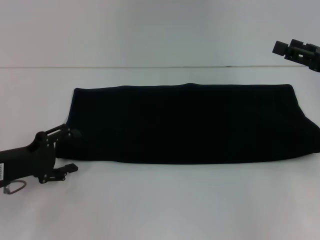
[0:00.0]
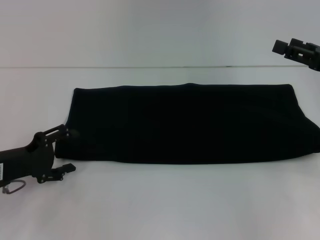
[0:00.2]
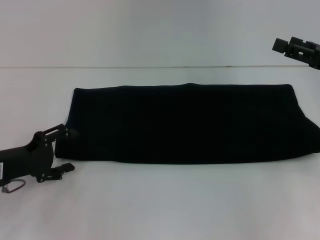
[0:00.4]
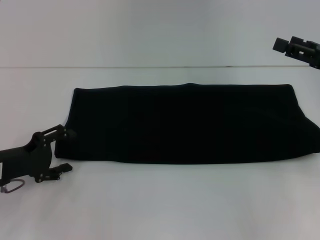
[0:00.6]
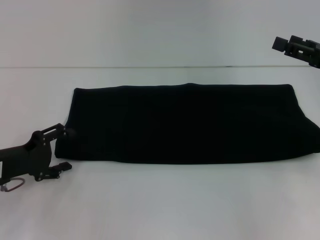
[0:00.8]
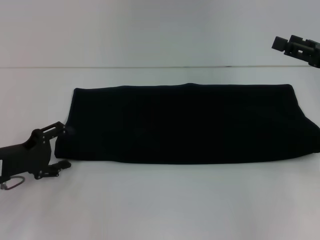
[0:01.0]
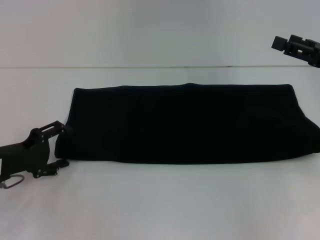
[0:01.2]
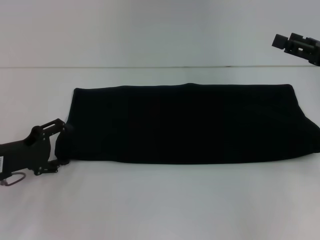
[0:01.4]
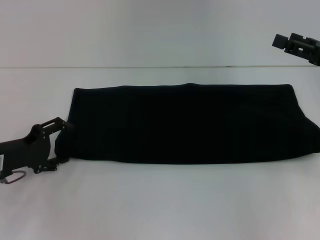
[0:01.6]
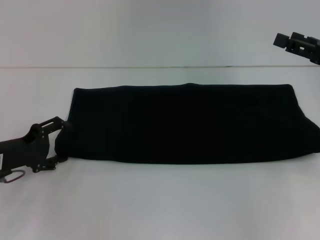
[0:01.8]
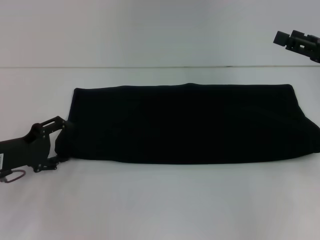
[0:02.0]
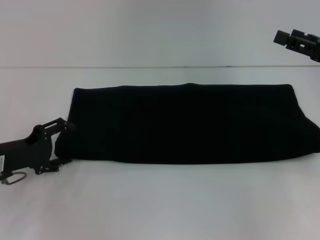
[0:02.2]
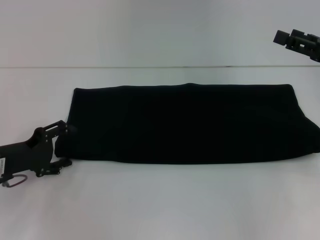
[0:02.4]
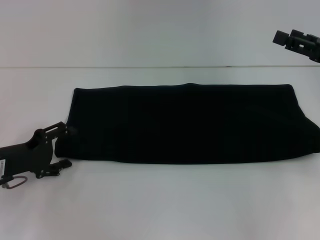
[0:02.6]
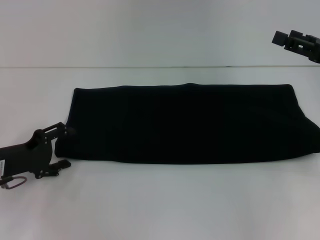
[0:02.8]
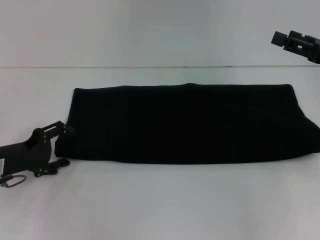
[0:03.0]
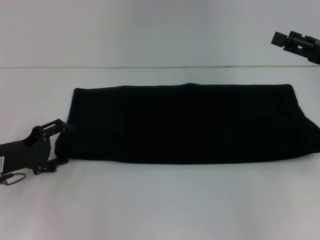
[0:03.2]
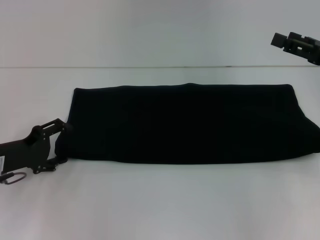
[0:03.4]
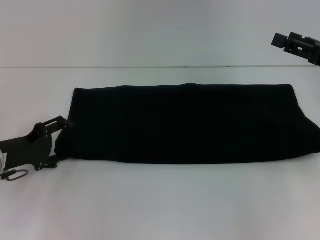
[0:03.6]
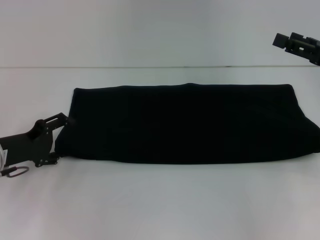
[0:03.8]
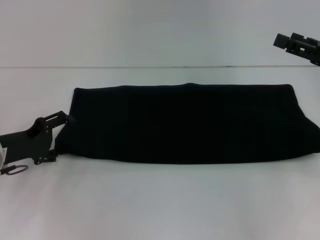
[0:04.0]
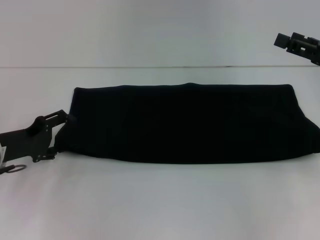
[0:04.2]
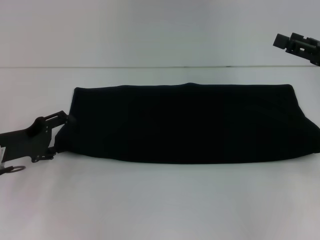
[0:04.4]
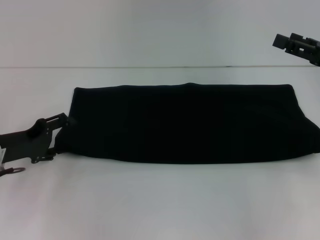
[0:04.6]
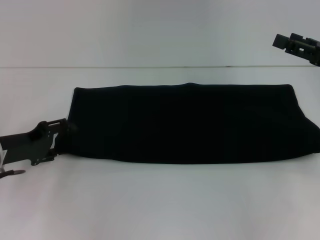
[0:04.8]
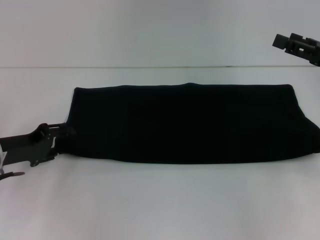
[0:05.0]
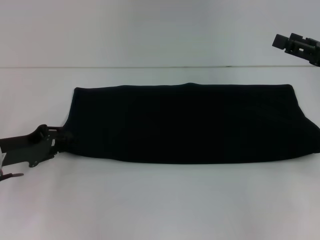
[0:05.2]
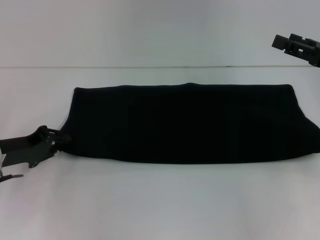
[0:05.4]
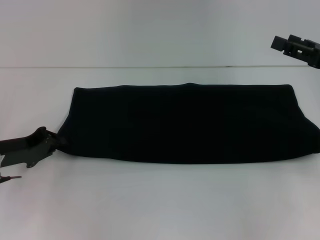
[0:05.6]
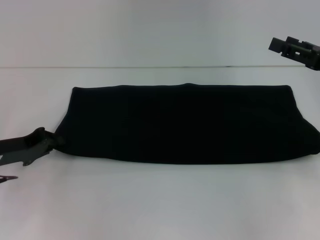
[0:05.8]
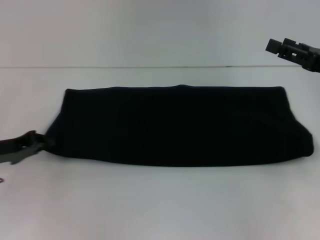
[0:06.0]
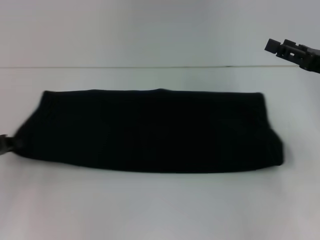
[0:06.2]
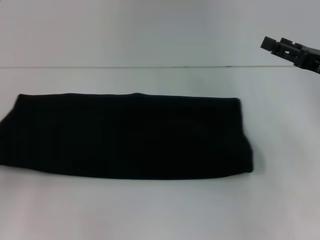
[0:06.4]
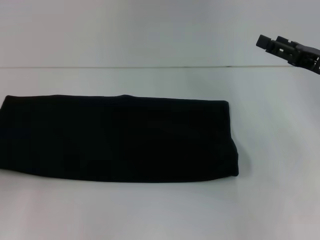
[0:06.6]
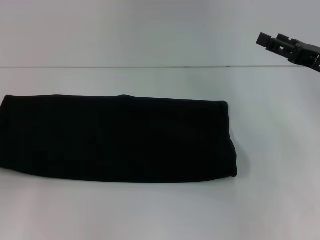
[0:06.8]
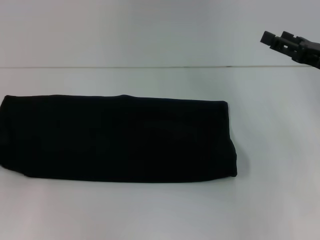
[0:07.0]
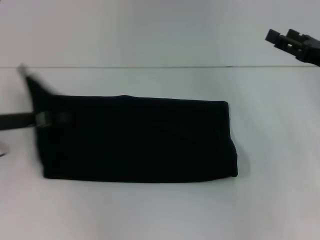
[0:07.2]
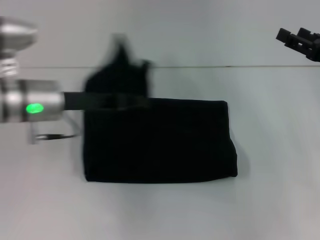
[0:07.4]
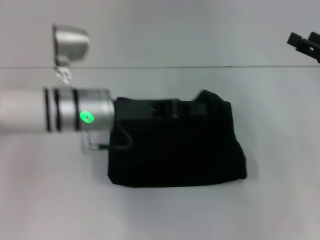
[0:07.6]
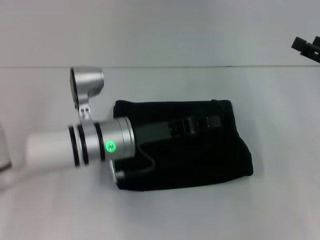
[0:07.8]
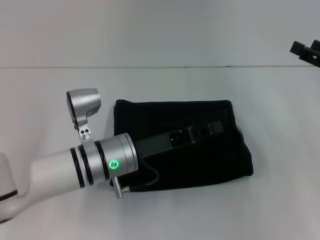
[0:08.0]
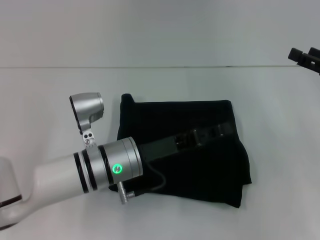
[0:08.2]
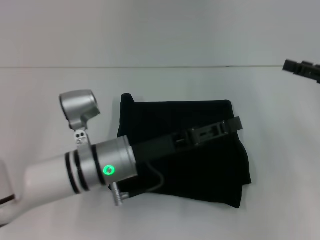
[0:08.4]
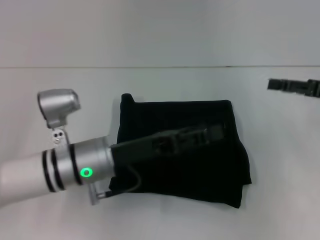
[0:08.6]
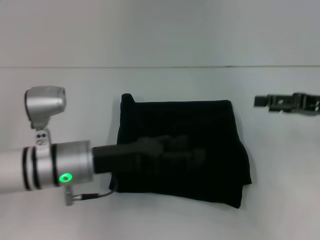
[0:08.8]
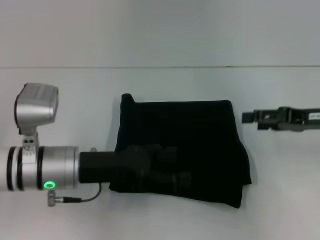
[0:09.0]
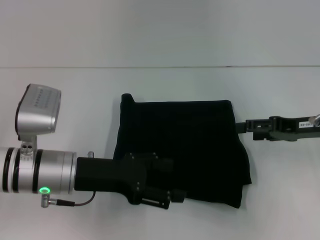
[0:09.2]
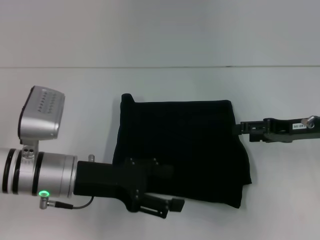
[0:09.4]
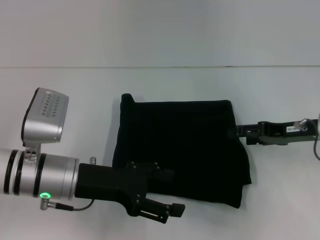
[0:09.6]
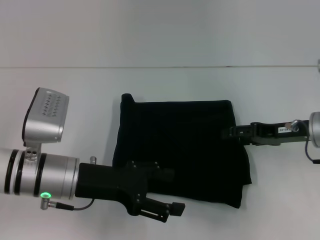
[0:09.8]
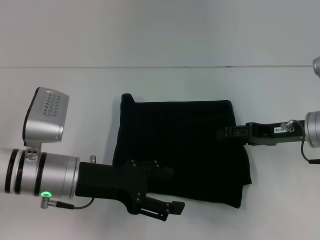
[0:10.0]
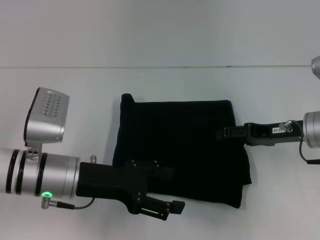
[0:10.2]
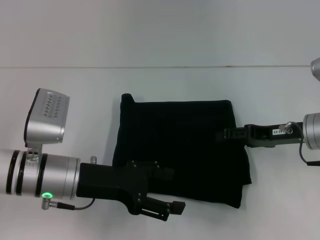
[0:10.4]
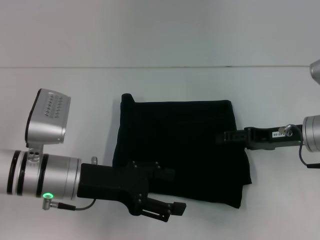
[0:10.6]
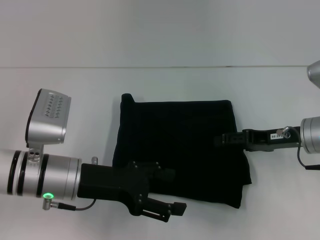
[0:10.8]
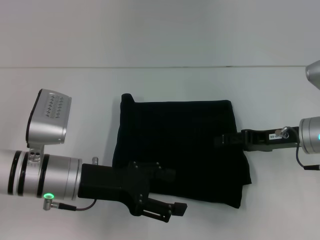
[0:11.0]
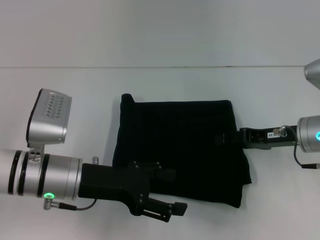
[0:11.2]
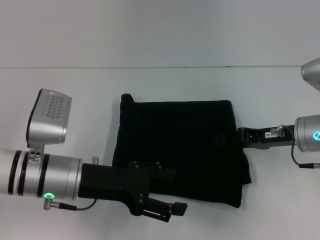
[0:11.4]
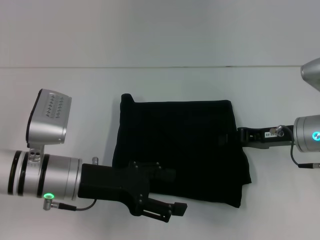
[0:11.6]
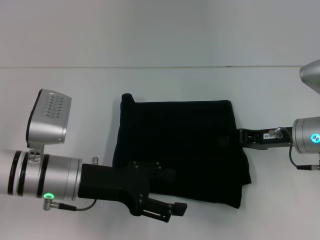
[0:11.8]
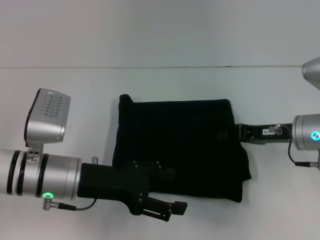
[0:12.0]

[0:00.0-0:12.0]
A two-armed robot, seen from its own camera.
Step, 0:00.0 to 0:08.4: Fold the clothes with your left hand.
0:00.0 to 0:01.6: The grippers move only a little.
0:01.6 to 0:03.0: Neither gripper changes place.
0:03.0 to 0:04.4: The grippers stay close to where they were, moving slightly.
0:04.4 to 0:06.0: The left gripper closes.
0:06.0 to 0:07.6: The left gripper goes approximately 20 cm to the right.
0:07.6 to 0:09.0: The left gripper is displaced backward by approximately 5 cm, and opens up.
0:09.0 to 0:10.4: The right gripper changes place by about 5 cm.
0:10.4 to 0:12.0: The right gripper closes up.

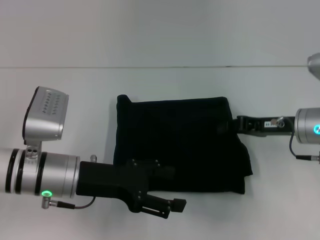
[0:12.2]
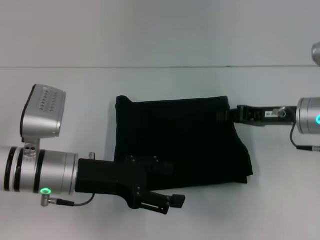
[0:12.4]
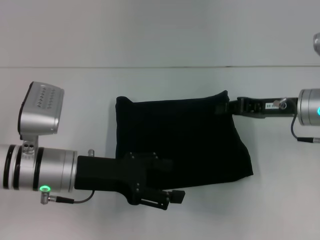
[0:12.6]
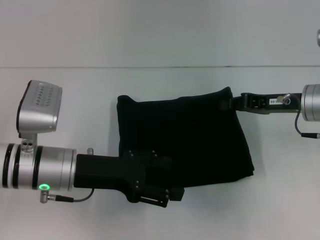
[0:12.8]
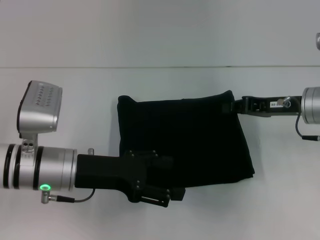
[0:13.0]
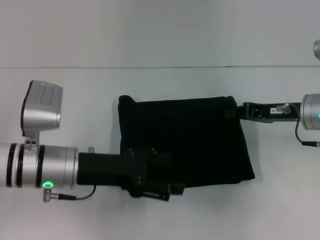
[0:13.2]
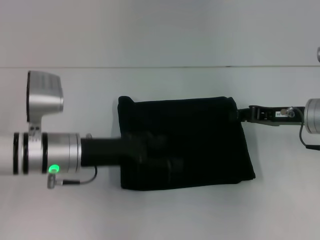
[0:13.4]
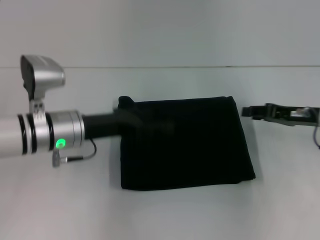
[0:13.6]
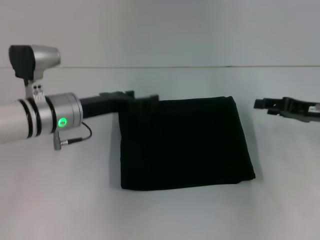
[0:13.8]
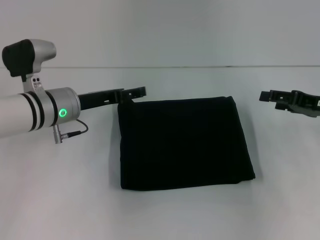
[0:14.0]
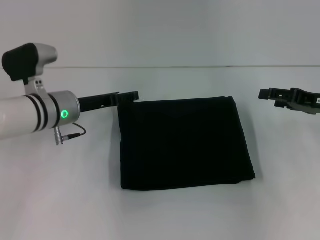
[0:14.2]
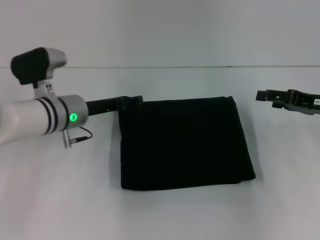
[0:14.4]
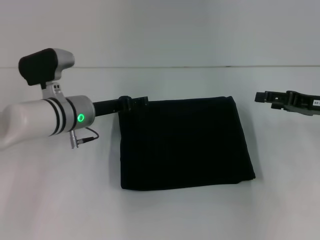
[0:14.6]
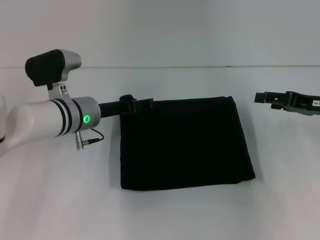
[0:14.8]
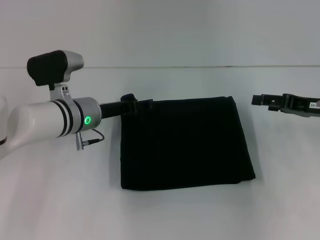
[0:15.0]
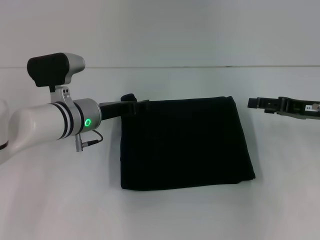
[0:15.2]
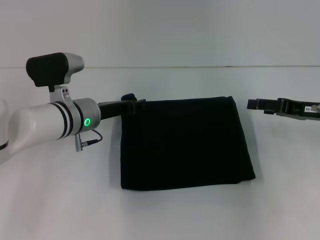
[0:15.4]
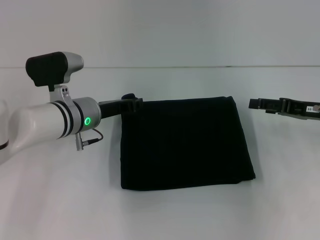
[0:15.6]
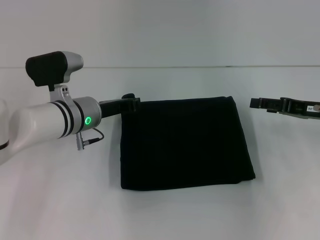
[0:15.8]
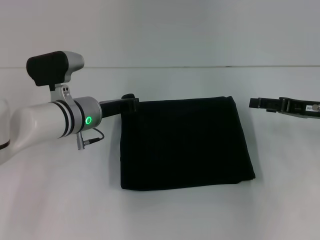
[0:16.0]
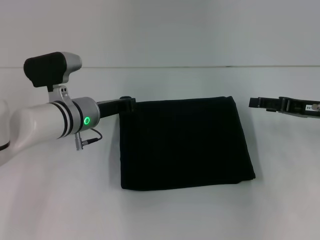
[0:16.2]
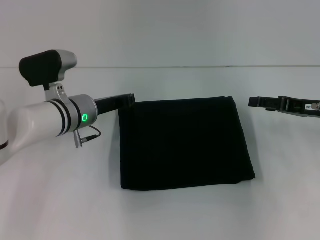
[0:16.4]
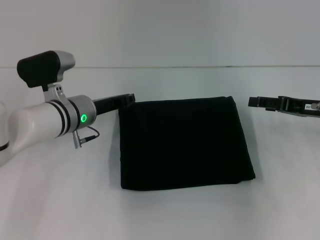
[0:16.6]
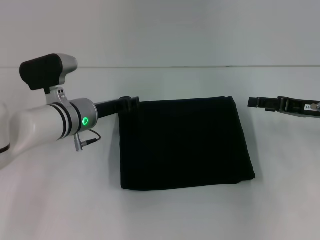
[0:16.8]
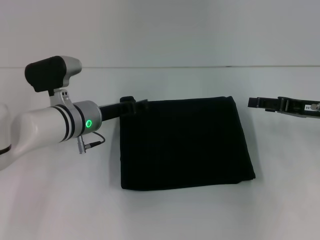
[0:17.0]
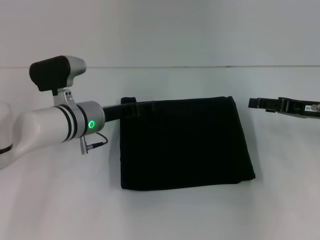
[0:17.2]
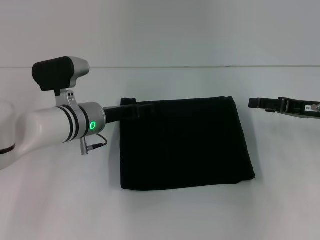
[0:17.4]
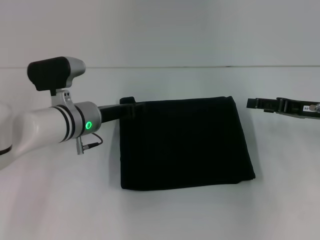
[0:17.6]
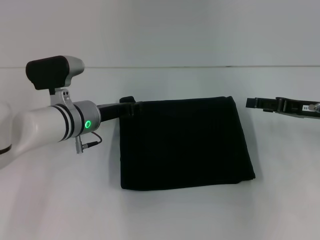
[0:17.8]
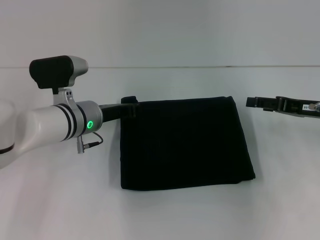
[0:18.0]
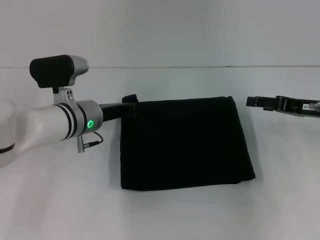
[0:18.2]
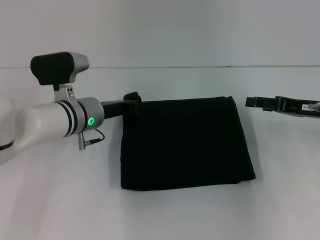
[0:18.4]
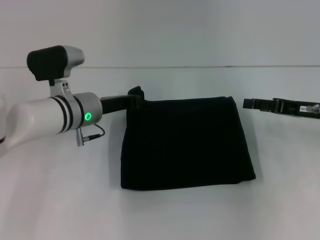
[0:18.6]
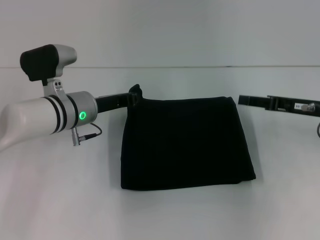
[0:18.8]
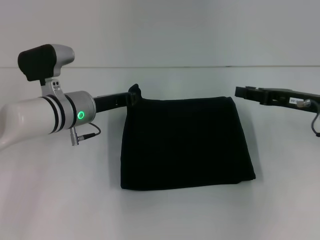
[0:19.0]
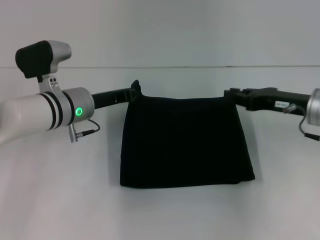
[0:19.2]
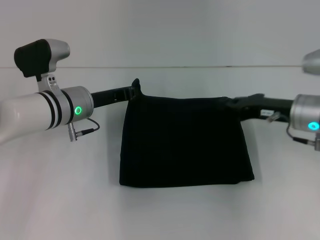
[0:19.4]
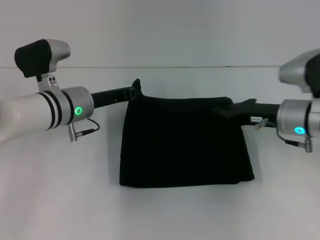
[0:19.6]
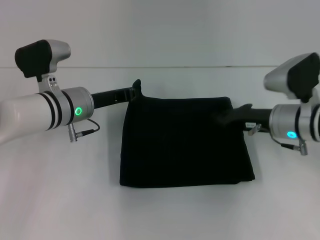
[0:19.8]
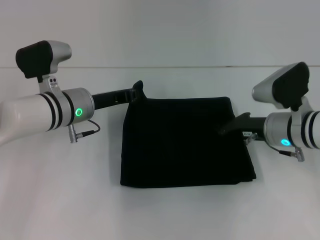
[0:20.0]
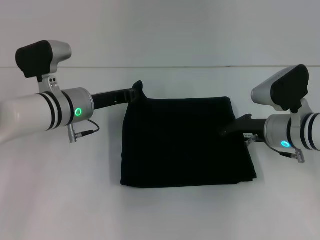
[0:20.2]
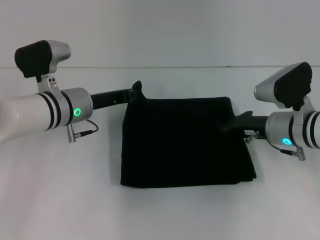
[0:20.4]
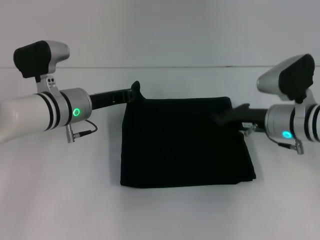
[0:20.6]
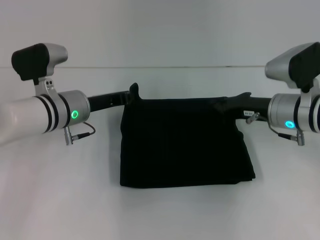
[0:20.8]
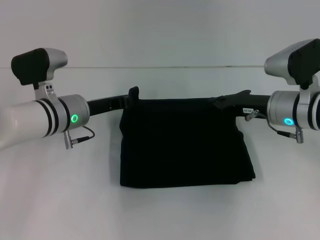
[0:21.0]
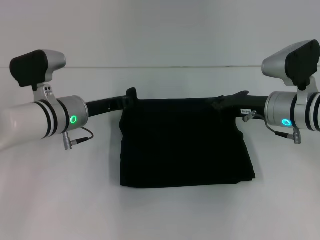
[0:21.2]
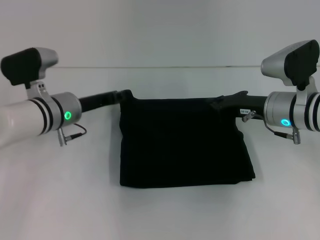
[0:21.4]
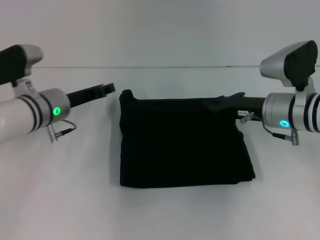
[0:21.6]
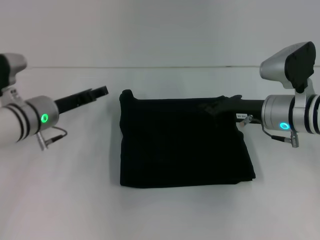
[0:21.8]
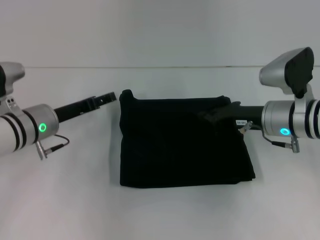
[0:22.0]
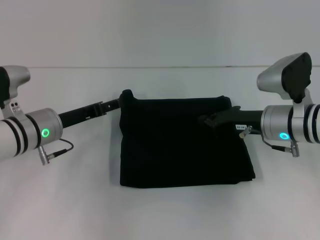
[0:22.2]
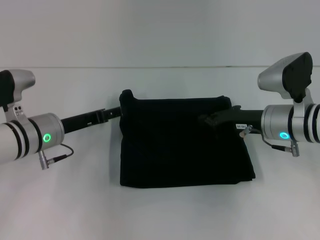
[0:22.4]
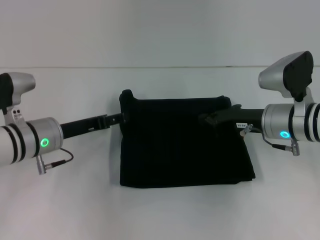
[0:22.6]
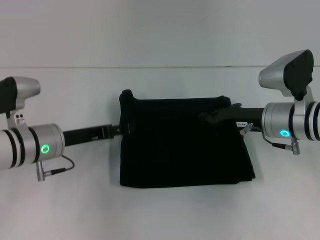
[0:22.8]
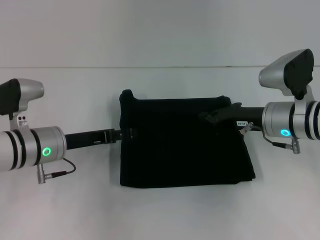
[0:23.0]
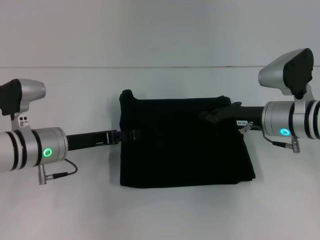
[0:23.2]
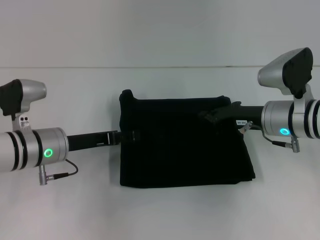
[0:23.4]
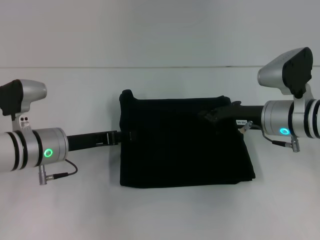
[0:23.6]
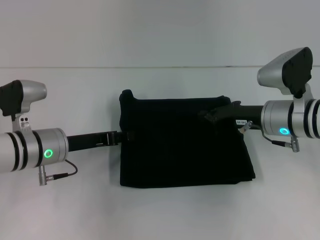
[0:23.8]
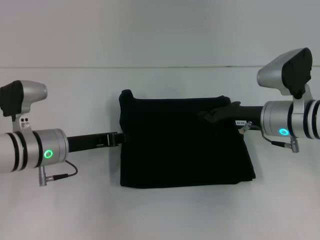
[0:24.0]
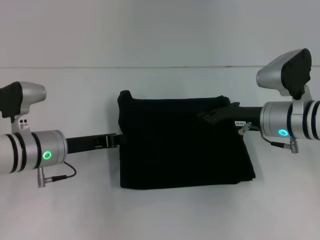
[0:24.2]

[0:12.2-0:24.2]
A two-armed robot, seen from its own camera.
0:12.2 to 0:13.8: The right gripper heads to the right, covering some 5 cm, and opens. The left gripper travels forward by about 10 cm.
0:15.2 to 0:16.6: The left gripper closes.
0:16.6 to 0:18.2: The left gripper opens, then closes once more.
0:18.2 to 0:19.8: The right gripper goes roughly 10 cm to the left, and closes its fingers.
0:19.8 to 0:21.2: There are only small adjustments of the grippers.
0:21.2 to 0:22.6: The left gripper ends up about 5 cm from where it was, and opens up.
0:22.6 to 0:24.2: The left gripper closes.
